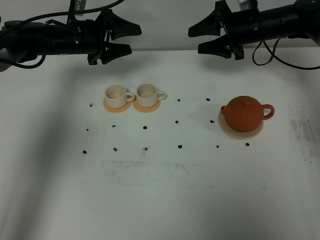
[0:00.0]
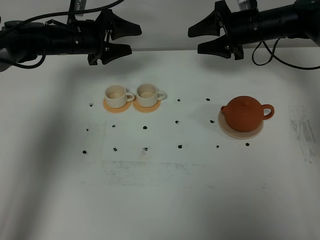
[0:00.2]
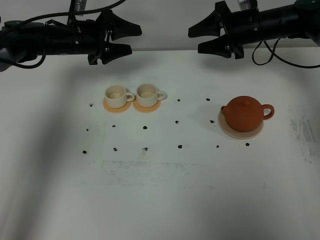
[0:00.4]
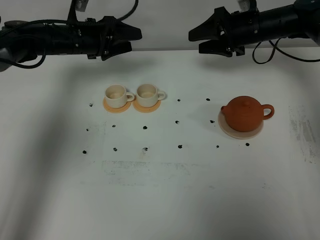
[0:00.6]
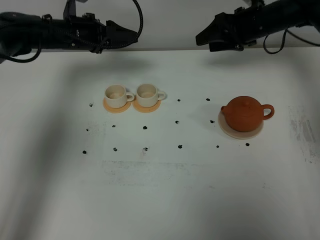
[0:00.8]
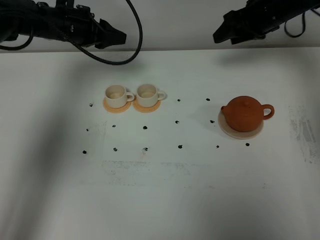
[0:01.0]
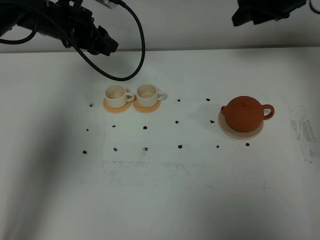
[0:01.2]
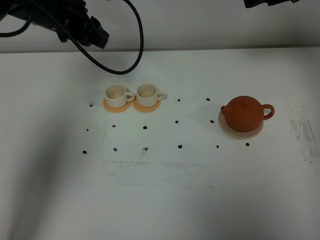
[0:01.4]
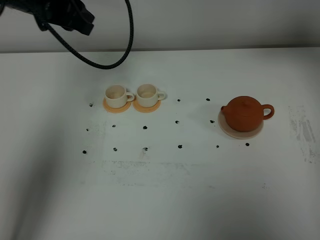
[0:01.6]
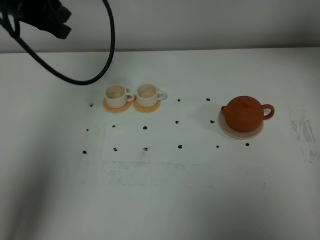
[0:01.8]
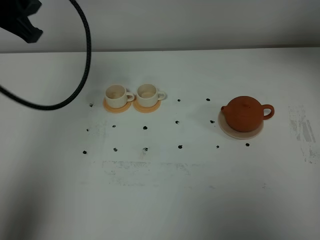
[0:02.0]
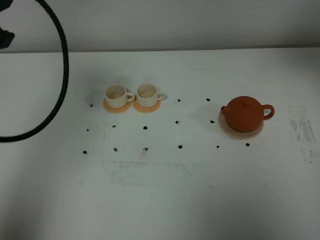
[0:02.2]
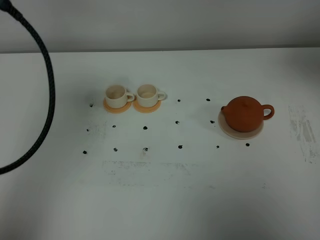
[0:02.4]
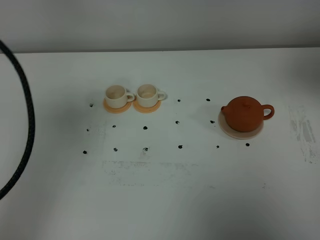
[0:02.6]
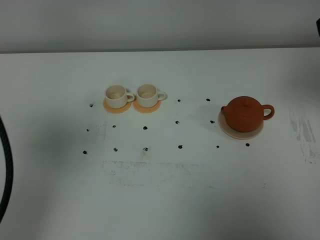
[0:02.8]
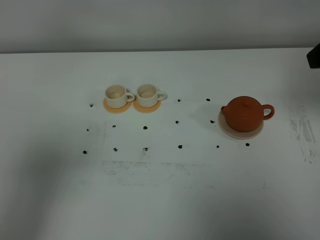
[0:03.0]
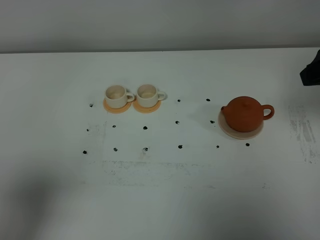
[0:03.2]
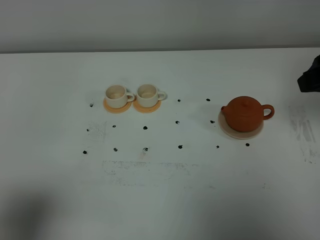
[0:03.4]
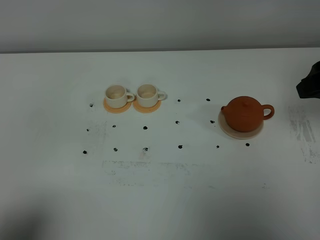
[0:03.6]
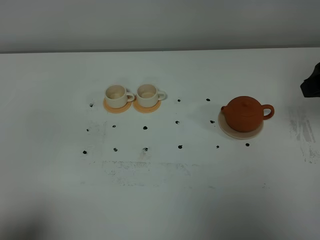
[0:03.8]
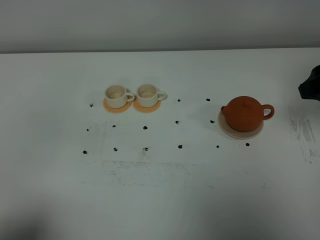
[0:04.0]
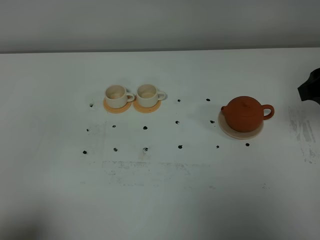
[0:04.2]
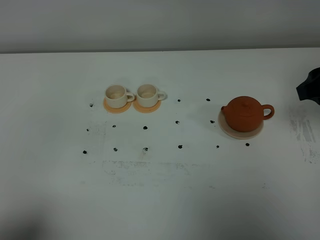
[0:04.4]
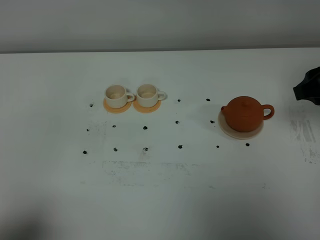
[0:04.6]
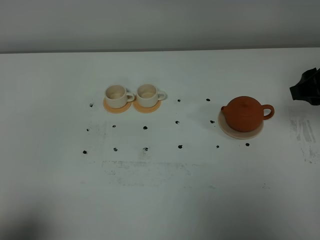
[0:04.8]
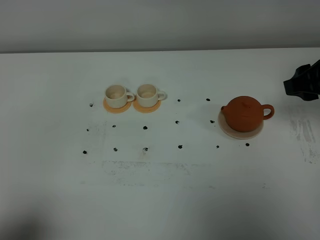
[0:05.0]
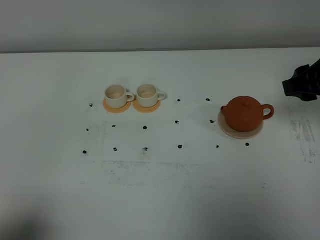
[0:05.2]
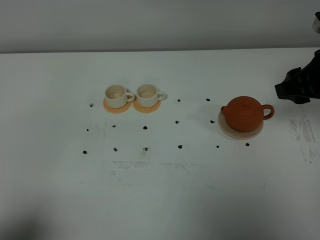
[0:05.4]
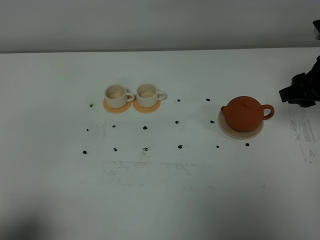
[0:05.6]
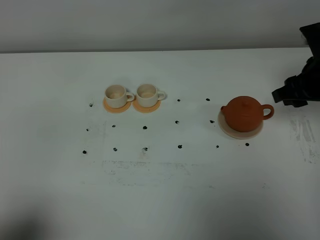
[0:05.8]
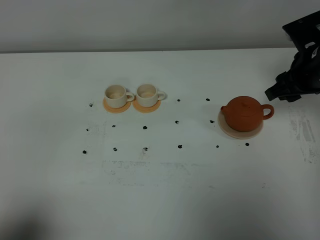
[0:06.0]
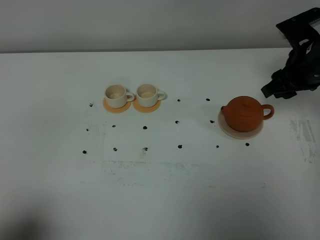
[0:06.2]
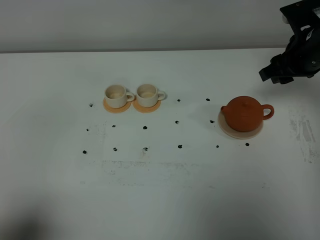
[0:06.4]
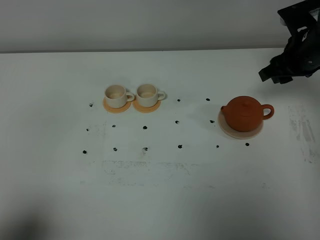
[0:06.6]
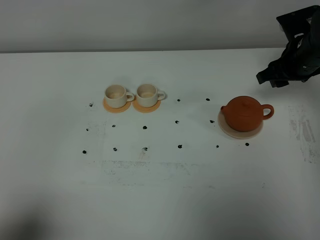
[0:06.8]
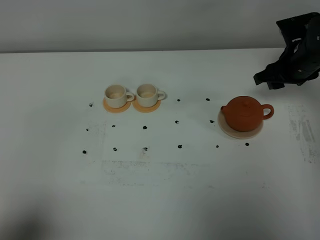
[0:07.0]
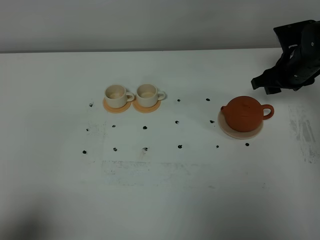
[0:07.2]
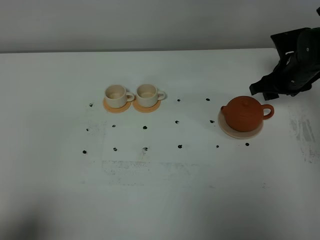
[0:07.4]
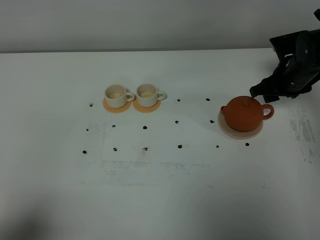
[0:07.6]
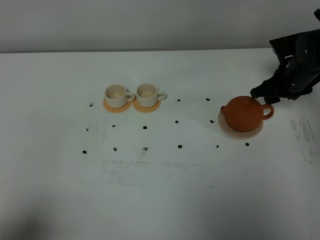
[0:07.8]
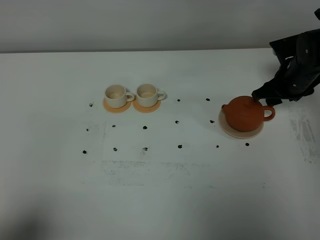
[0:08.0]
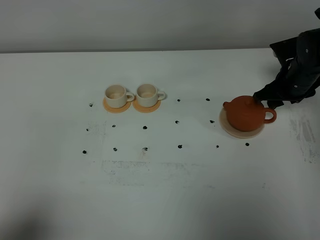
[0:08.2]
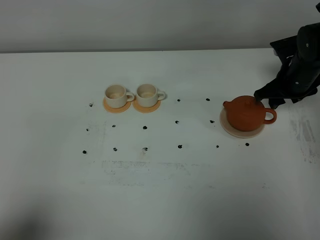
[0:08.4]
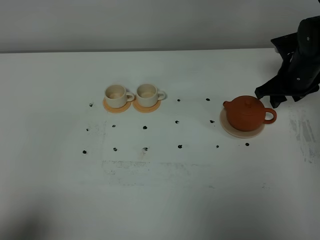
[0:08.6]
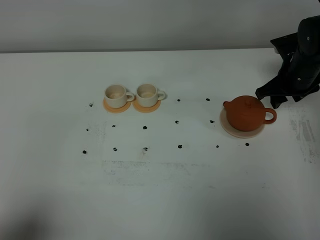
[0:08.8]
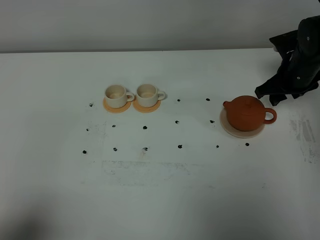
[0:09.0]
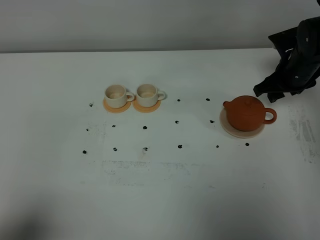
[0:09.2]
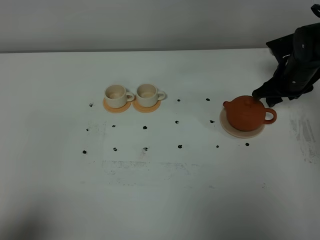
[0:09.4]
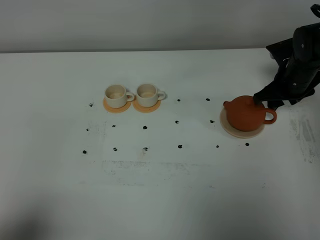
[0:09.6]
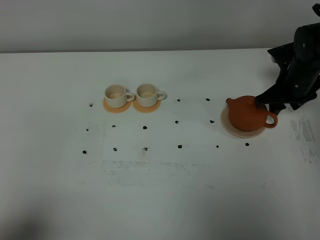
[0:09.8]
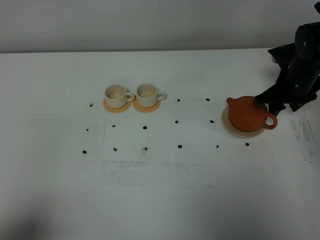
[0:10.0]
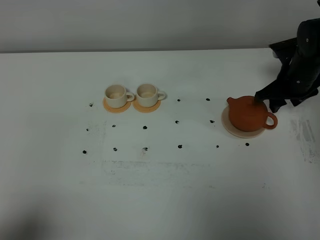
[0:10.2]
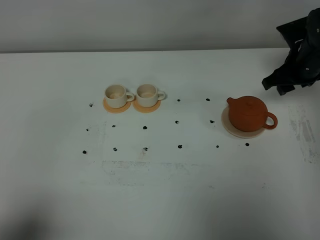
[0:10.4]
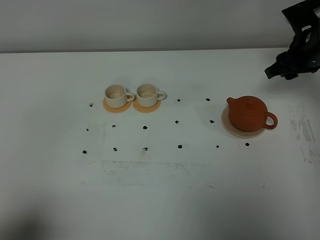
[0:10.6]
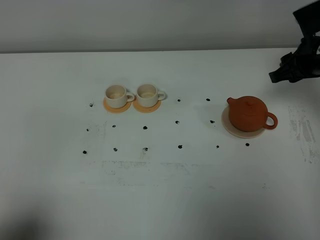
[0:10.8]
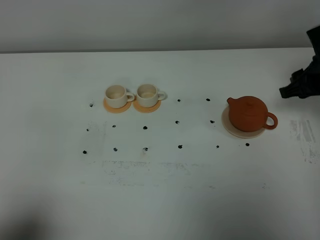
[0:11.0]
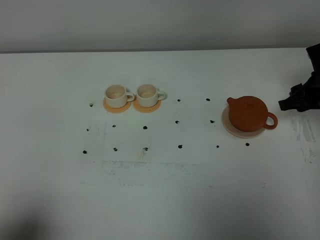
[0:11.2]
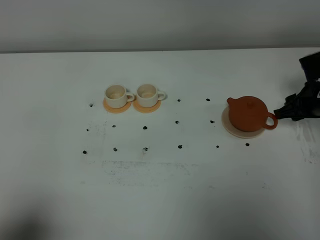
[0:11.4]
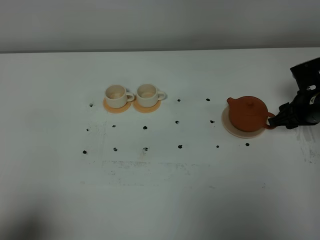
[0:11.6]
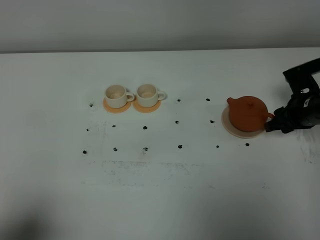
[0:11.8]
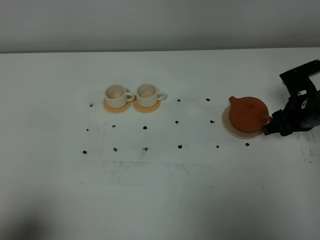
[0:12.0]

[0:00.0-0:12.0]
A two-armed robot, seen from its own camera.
Task of the whole recording: grasp the brown teapot and pour the tea into the two white teacups one by one, put the brown teapot back in its original place.
0:00.0 to 0:01.6: Both grippers travel together upward and backward, some 20 cm.
0:01.6 to 0:03.0: The left gripper goes roughly 35 cm backward, and closes up. The right gripper is displaced backward by approximately 15 cm.
0:03.0 to 0:04.4: The left gripper travels downward and backward by roughly 15 cm, while the right gripper heads downward, covering some 10 cm.
0:04.4 to 0:06.0: The right gripper travels forward and downward by about 10 cm.
0:06.0 to 0:07.6: The right gripper moves downward and forward, roughly 10 cm.
0:07.6 to 0:10.4: The grippers move only a little.
0:10.4 to 0:12.0: The right gripper heads downward and backward, covering some 10 cm.

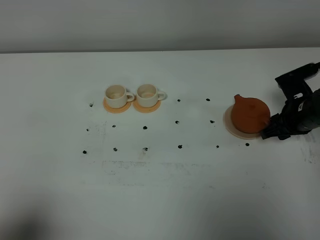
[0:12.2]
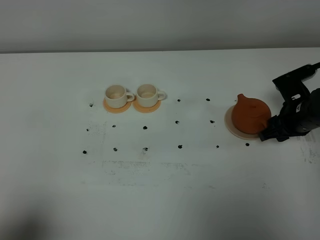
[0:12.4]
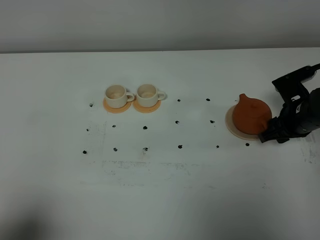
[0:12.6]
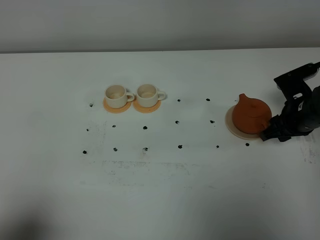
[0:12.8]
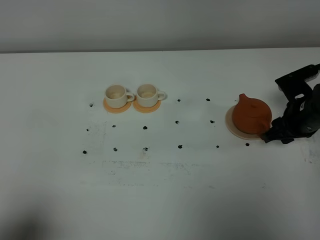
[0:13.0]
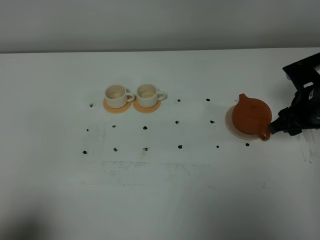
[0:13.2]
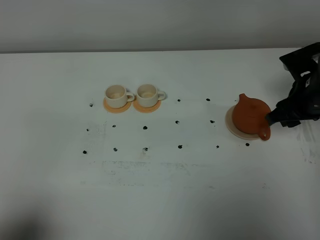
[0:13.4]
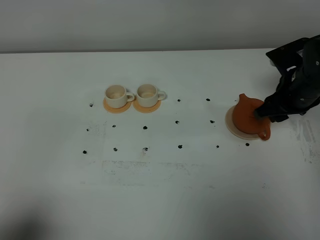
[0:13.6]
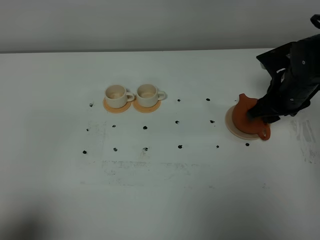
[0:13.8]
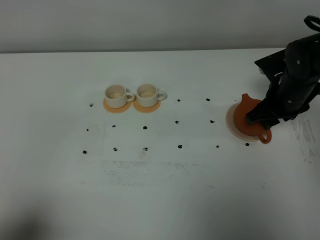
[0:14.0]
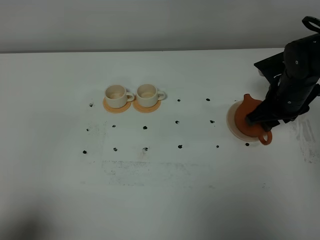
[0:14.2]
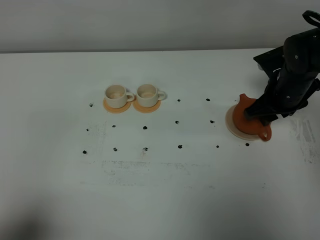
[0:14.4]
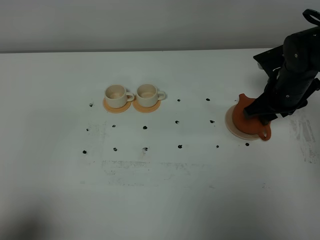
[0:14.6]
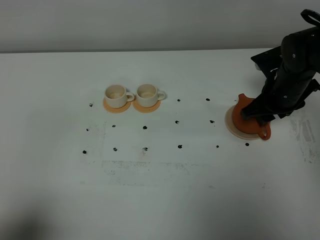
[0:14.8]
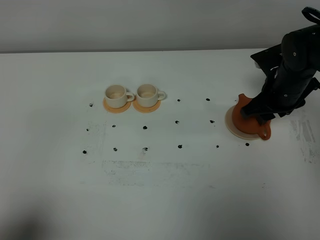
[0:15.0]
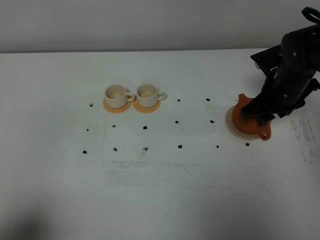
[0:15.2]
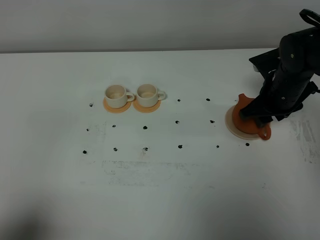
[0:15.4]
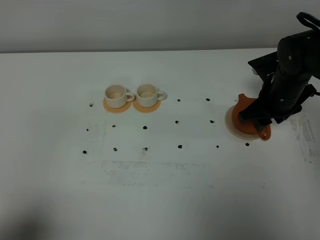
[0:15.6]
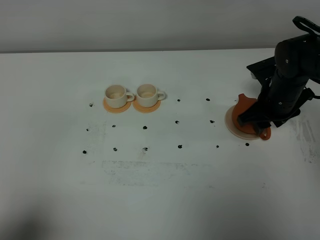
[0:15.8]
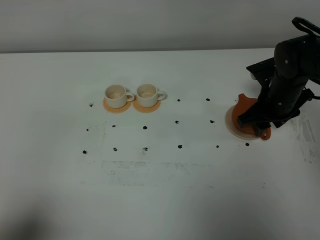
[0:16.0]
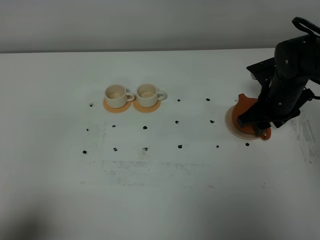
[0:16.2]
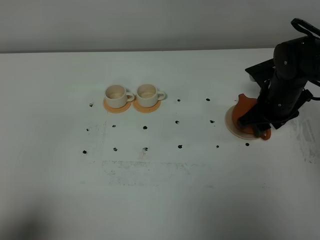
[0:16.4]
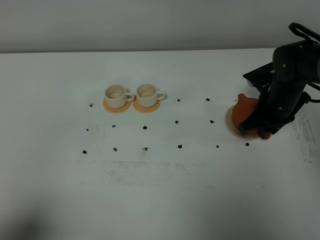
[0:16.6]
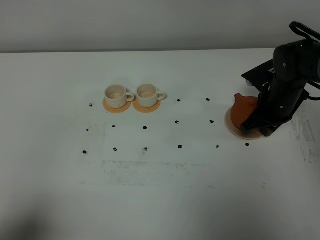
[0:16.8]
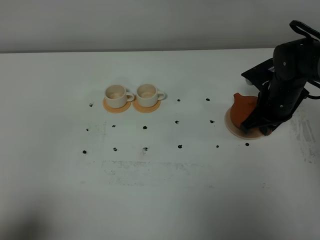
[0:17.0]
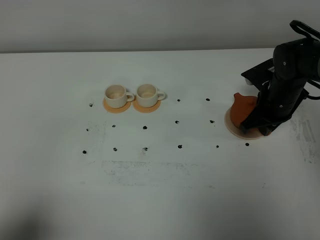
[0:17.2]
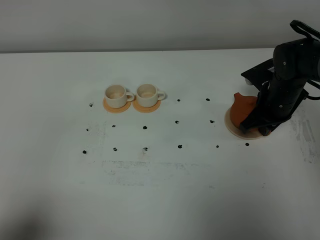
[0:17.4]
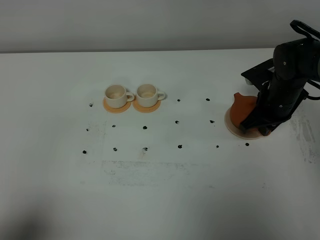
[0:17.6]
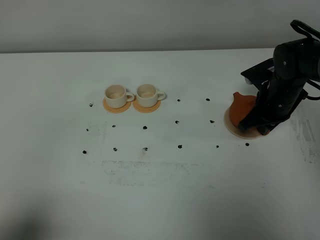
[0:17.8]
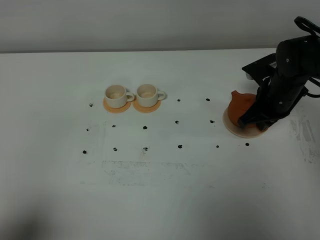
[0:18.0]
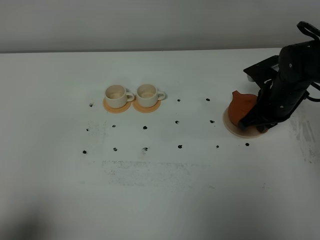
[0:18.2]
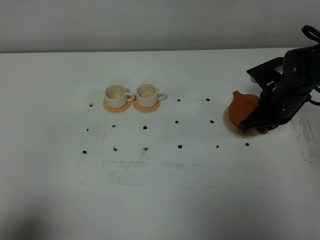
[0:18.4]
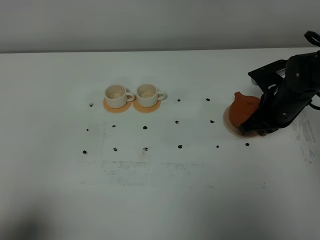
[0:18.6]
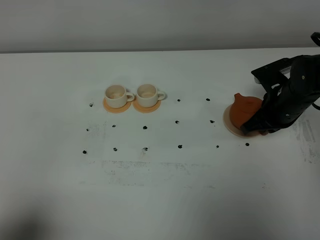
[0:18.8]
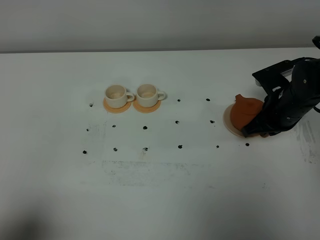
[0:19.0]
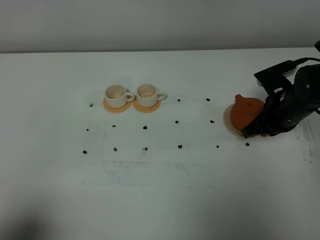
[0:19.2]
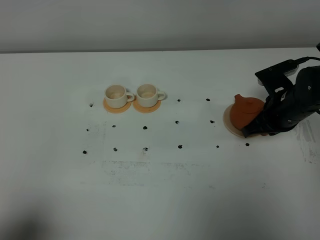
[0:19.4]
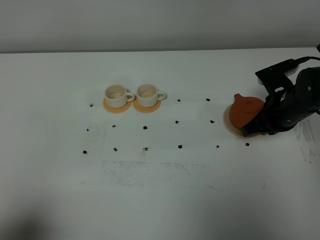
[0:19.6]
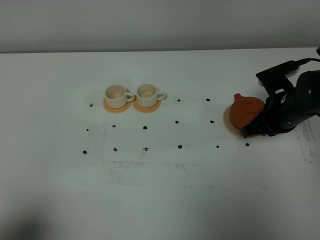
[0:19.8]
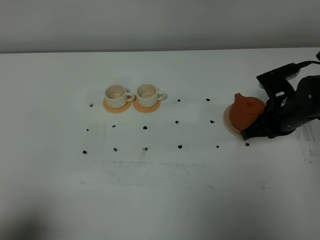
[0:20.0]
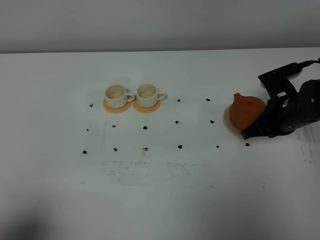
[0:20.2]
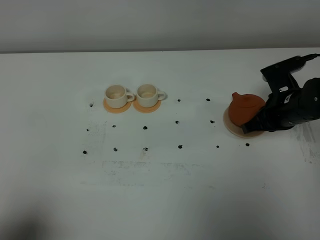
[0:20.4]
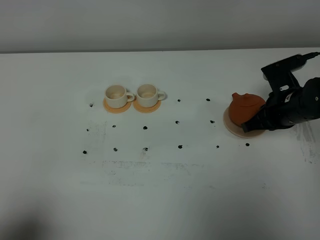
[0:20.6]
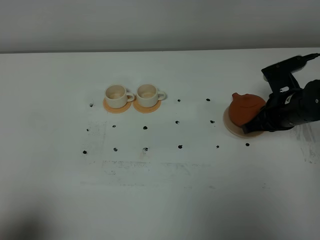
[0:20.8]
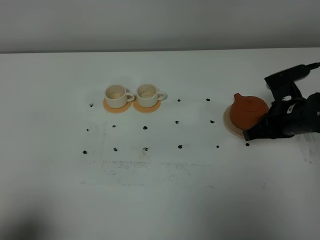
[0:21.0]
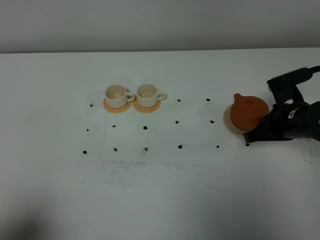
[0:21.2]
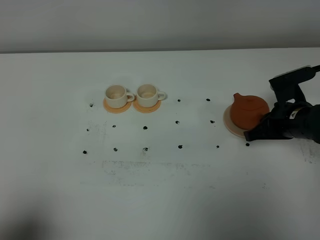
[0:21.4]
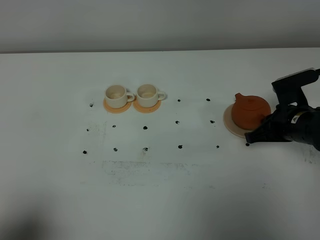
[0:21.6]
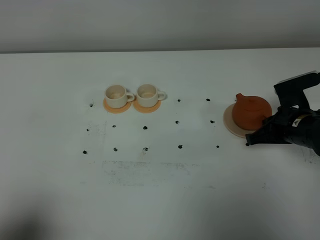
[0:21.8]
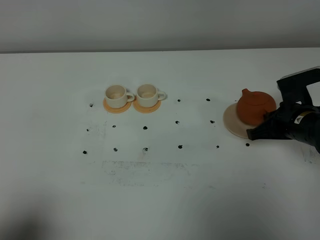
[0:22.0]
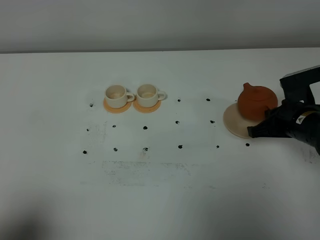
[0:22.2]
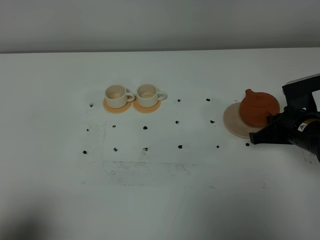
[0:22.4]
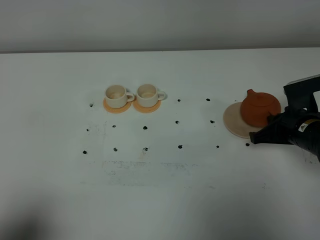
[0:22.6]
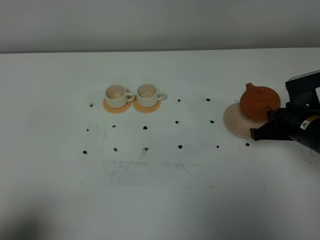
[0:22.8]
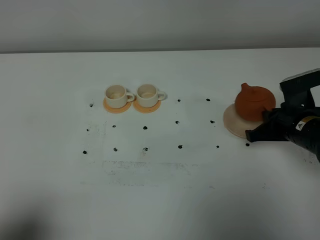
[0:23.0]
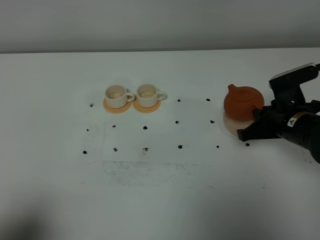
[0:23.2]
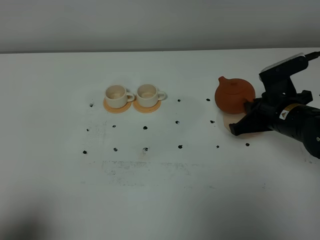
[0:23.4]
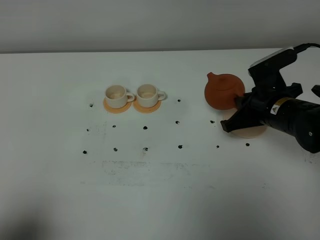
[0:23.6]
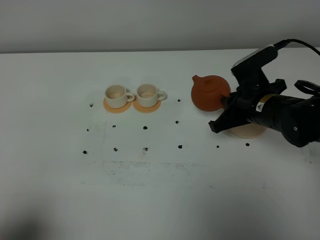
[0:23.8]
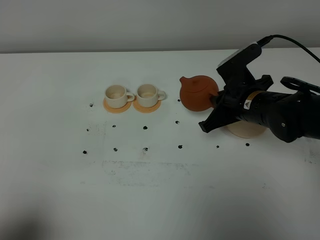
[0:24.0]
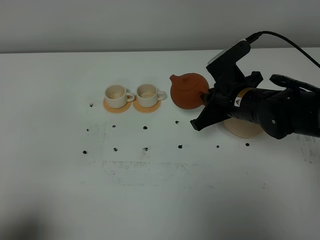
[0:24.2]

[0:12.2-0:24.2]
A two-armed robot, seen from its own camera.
Task of the whole recording: grasp the brown teapot and pour the tea into the two white teacups one by one, put the brown teapot back in its original place.
Step, 0:12.2 to 0:21.8: Pick up the teapot with the right gripper.
0:12.2 to 0:13.8: The right gripper travels upward by approximately 5 cm.
0:13.8 to 0:15.2: The grippers stay close to where they were, moving slightly.
0:15.2 to 0:16.6: The right gripper closes its fingers.
0:16.6 to 0:19.8: There are only small adjustments of the grippers.
0:19.8 to 0:21.2: There are only small adjustments of the grippers.
0:21.2 to 0:22.6: The grippers make only small movements.
0:22.6 to 0:24.2: The right gripper heads to the left, covering about 10 cm.
